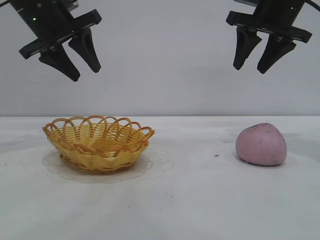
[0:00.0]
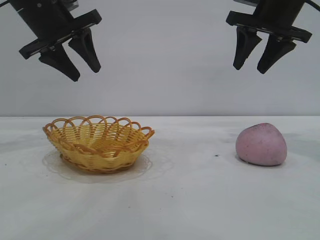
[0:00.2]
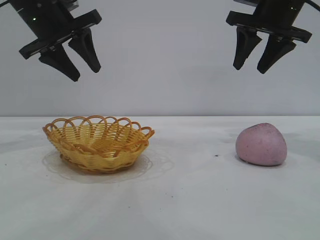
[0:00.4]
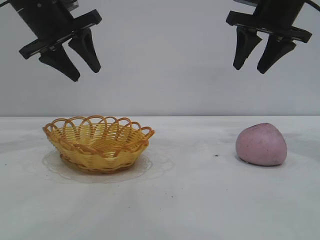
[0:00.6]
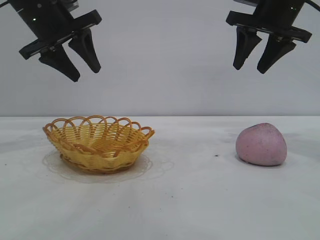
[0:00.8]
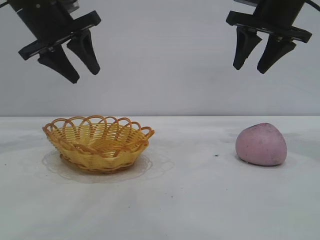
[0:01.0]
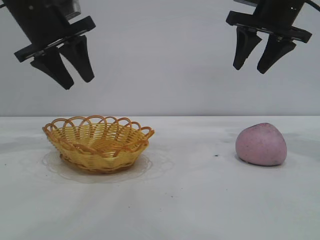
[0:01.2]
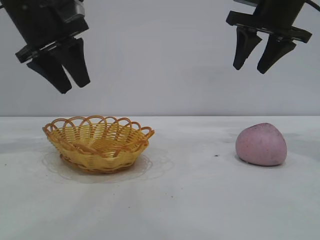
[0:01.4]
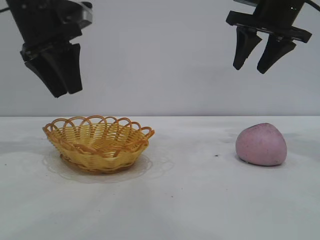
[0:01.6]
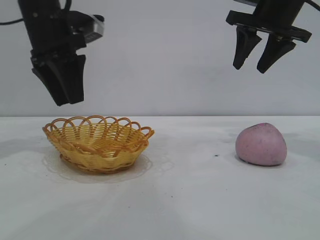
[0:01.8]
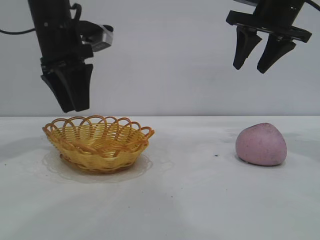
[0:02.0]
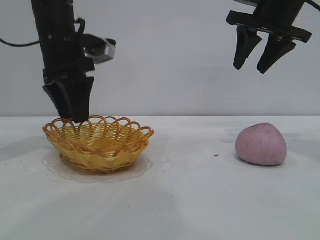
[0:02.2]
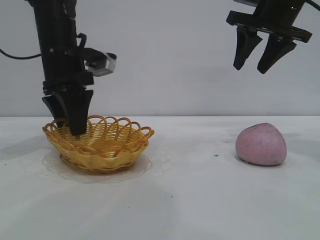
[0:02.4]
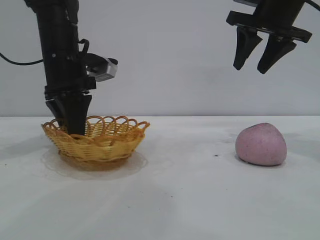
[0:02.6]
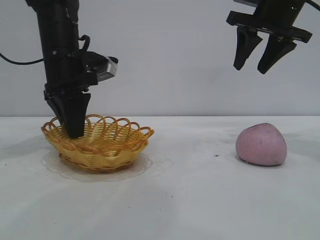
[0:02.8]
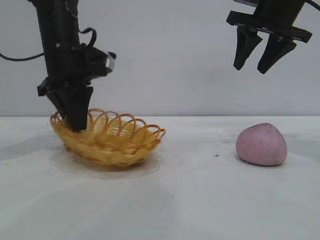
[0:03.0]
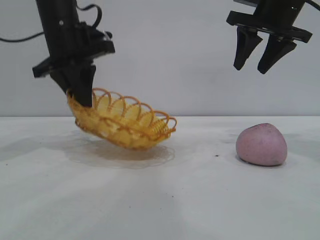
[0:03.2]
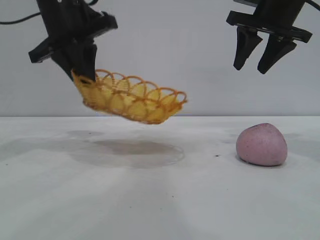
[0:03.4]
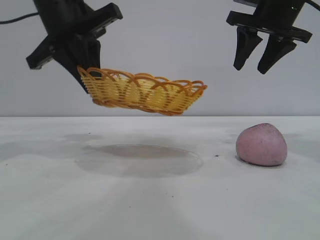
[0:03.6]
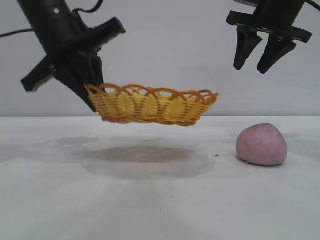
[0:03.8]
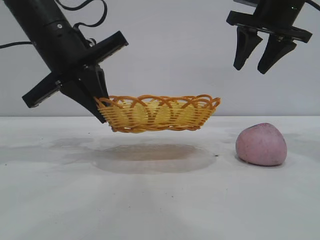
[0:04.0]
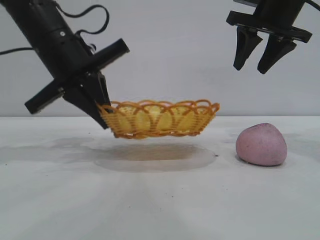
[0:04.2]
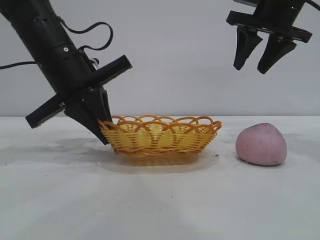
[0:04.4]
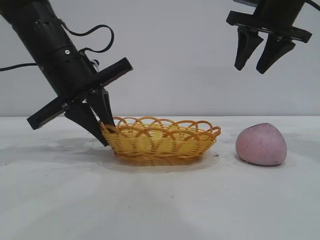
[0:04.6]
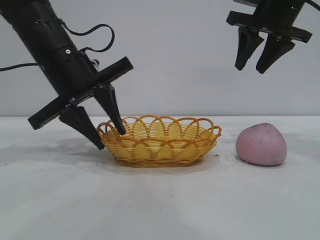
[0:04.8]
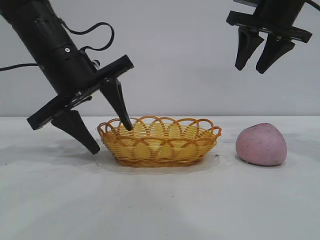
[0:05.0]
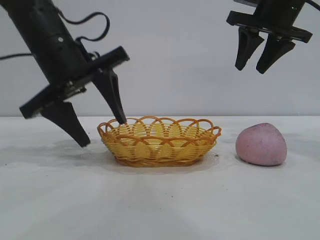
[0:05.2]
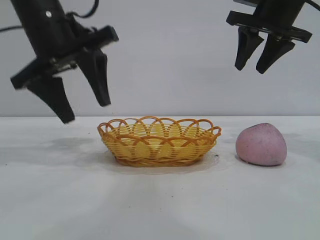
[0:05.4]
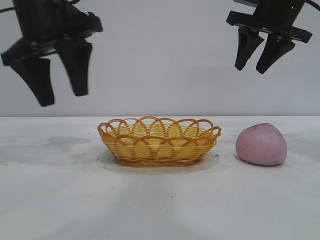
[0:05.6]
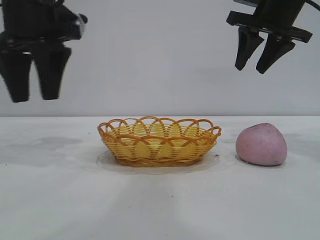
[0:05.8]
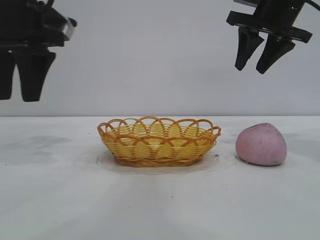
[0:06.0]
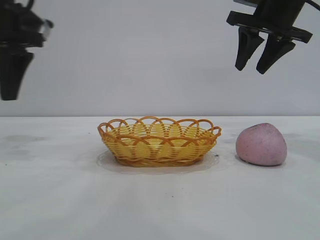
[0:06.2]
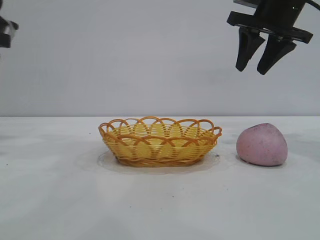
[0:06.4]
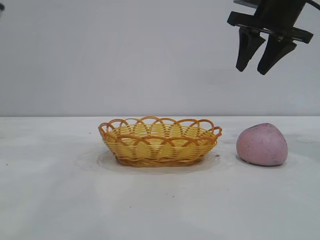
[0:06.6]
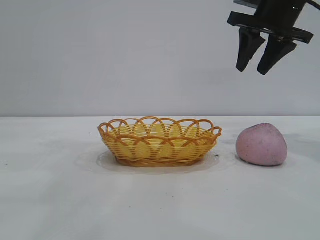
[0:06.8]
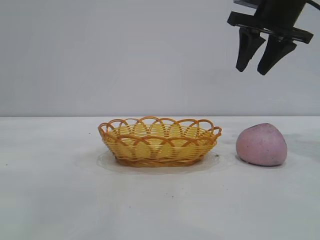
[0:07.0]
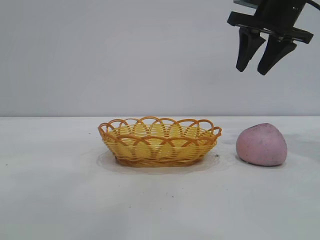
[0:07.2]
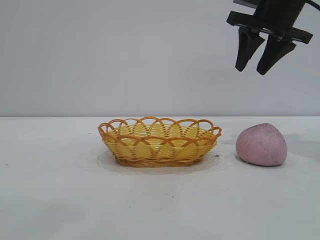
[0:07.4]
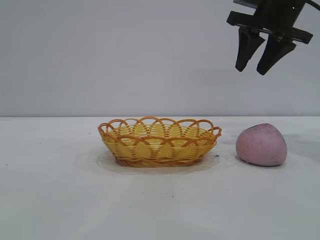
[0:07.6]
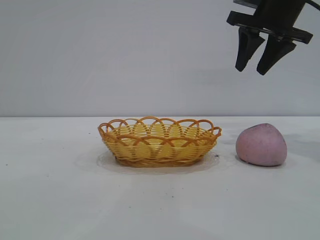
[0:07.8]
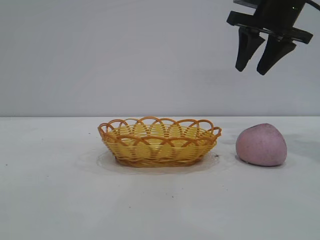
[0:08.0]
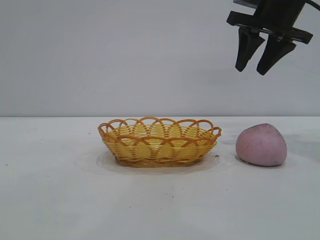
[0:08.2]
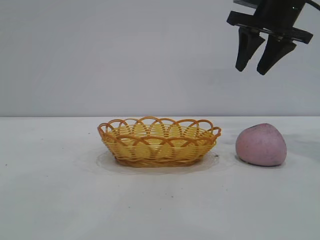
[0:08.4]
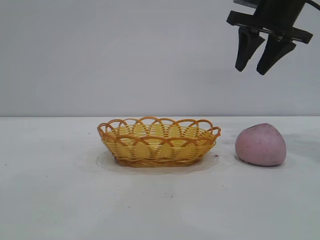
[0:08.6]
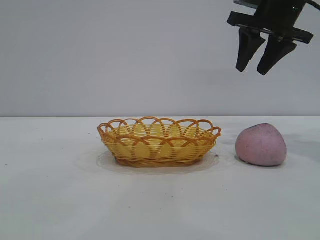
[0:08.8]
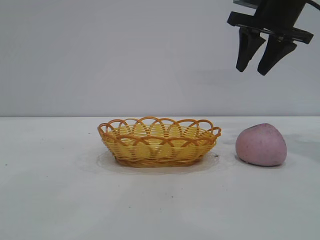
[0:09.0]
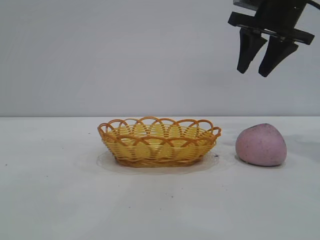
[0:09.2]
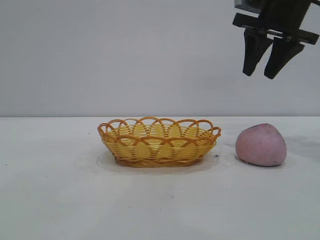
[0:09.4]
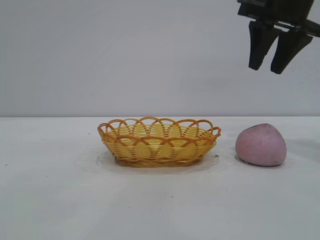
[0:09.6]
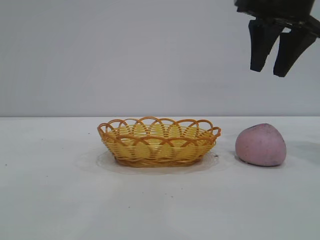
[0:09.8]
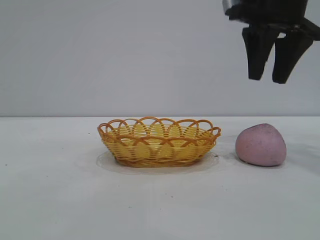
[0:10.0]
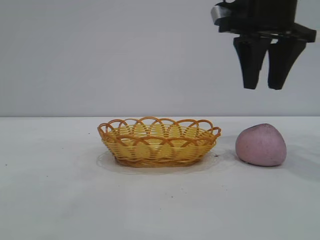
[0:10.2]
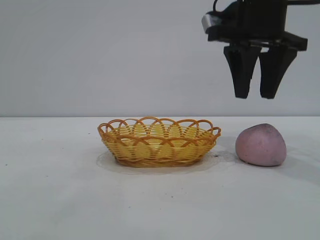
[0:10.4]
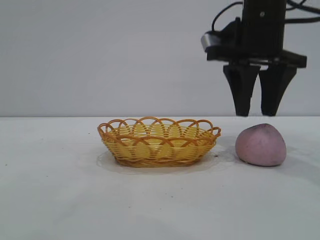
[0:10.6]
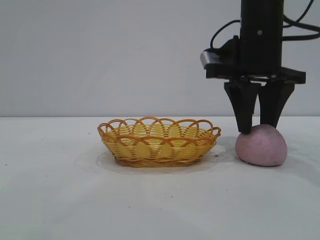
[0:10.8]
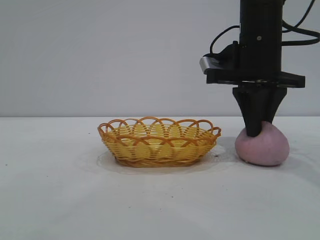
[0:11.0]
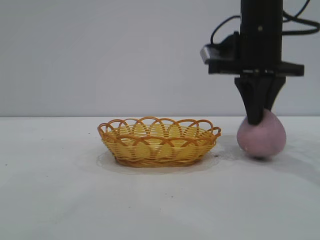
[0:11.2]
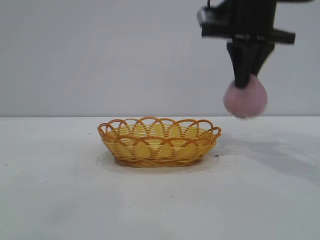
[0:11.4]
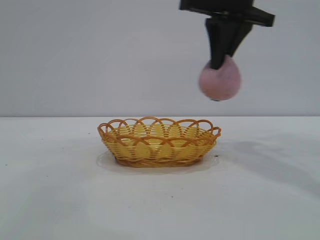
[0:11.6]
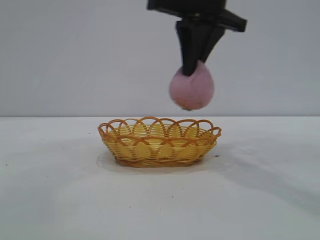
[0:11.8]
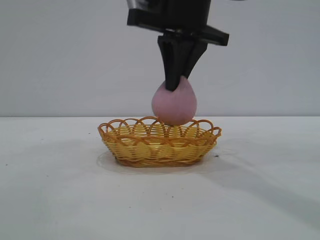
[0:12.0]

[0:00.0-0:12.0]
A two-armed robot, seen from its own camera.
Task of the whole recording: pick up the peach and put it into the basket.
Step, 0:00.0 to 0:05.4: Move the basket to the center of view.
Step, 0:05.6 to 0:11.2: Pick up the peach.
